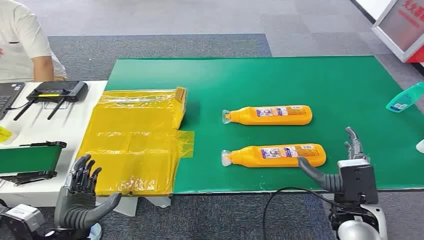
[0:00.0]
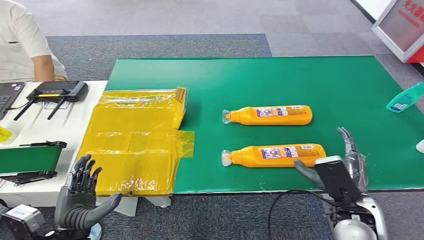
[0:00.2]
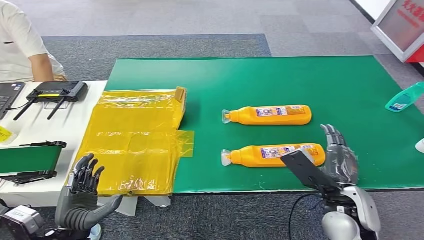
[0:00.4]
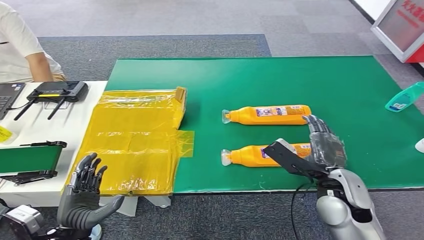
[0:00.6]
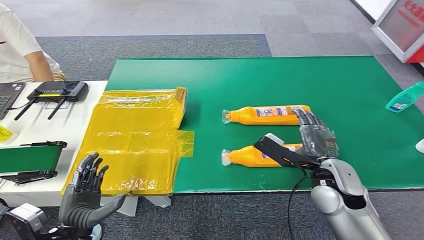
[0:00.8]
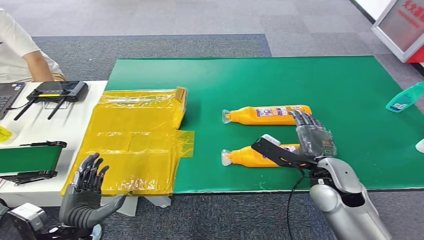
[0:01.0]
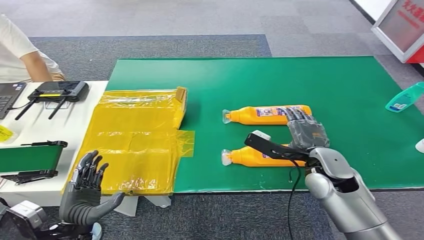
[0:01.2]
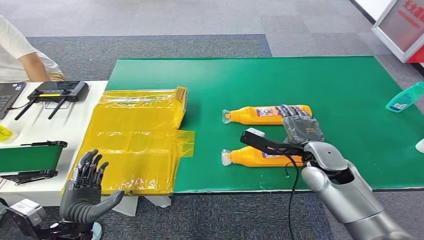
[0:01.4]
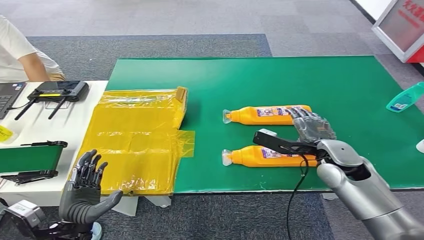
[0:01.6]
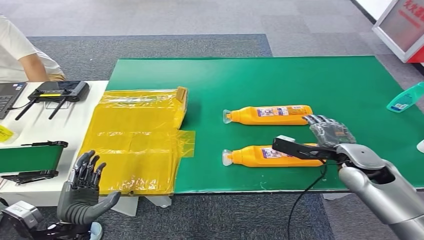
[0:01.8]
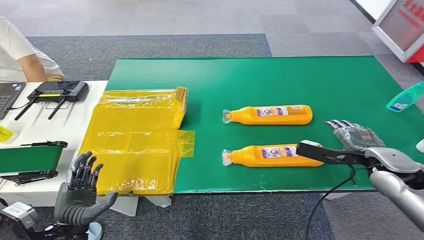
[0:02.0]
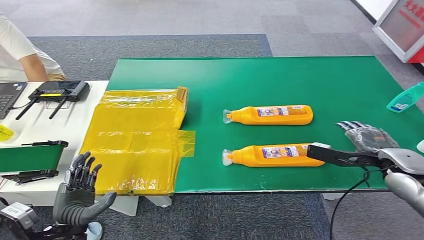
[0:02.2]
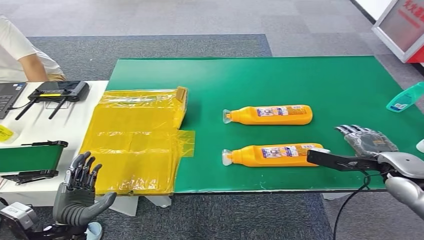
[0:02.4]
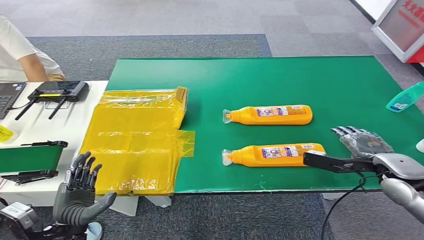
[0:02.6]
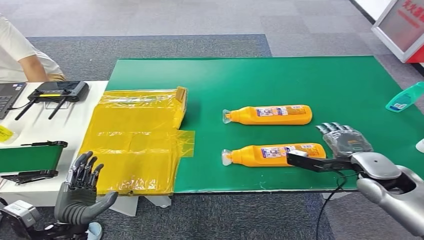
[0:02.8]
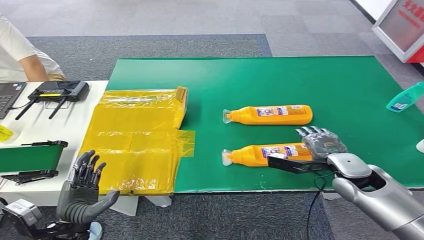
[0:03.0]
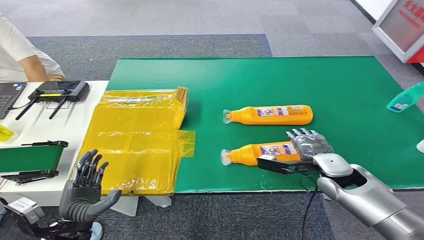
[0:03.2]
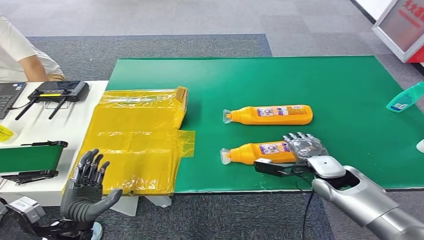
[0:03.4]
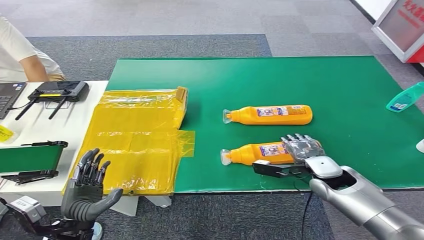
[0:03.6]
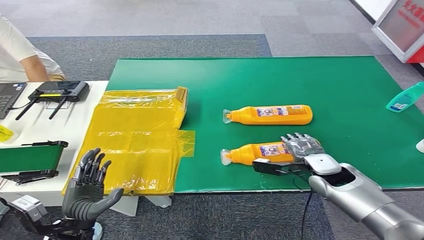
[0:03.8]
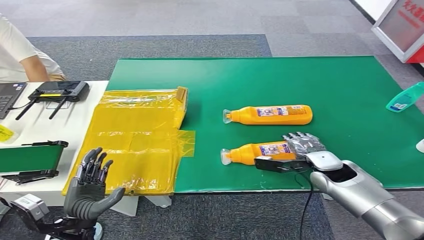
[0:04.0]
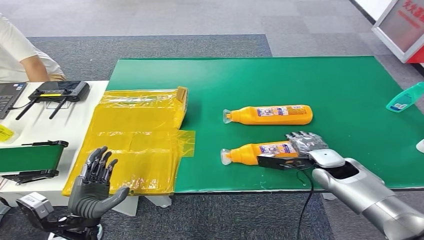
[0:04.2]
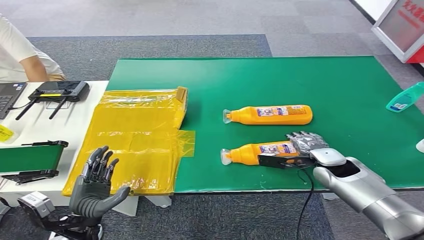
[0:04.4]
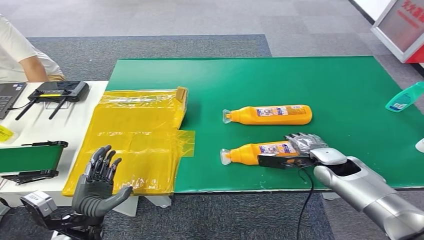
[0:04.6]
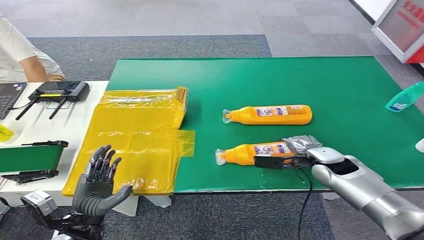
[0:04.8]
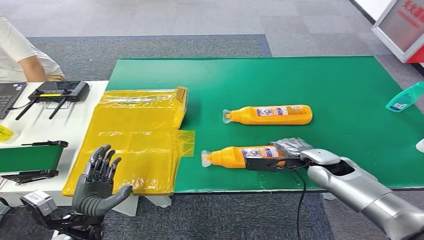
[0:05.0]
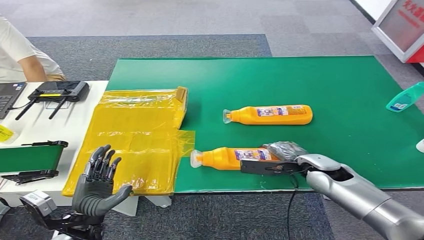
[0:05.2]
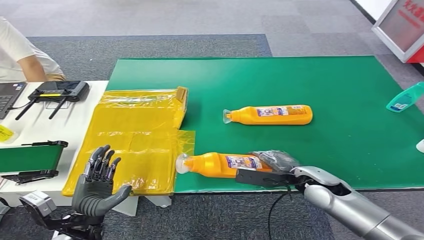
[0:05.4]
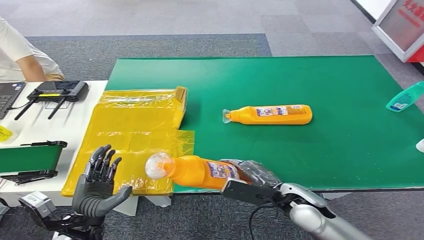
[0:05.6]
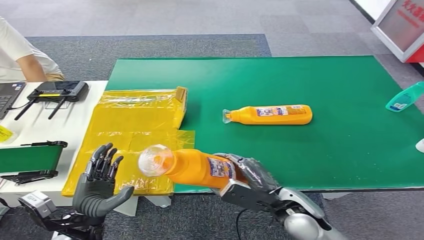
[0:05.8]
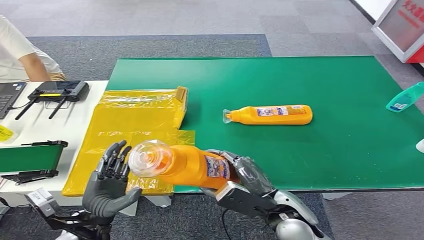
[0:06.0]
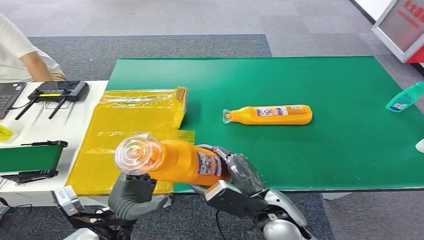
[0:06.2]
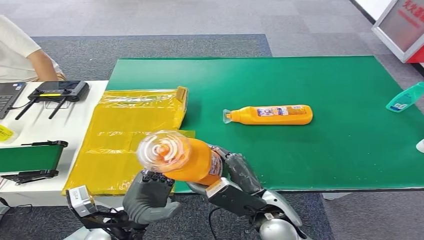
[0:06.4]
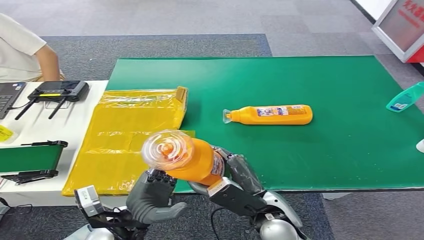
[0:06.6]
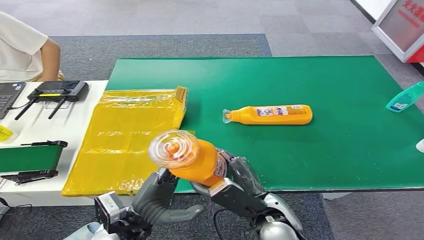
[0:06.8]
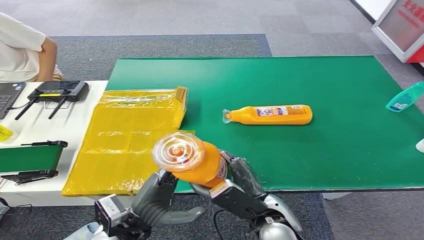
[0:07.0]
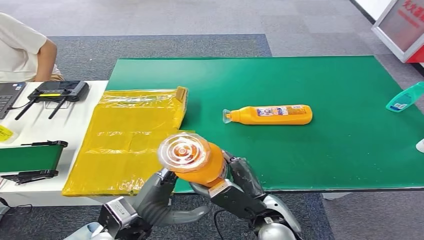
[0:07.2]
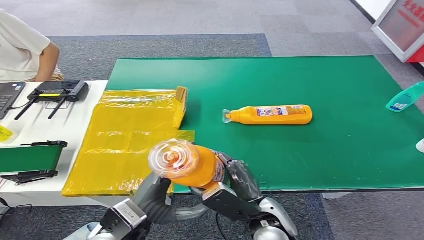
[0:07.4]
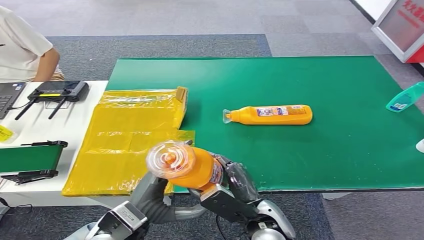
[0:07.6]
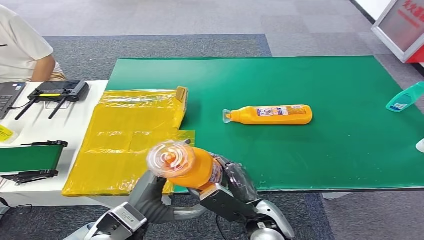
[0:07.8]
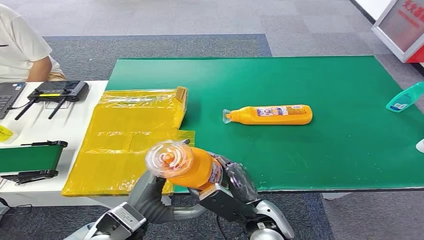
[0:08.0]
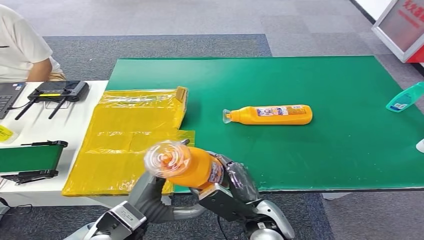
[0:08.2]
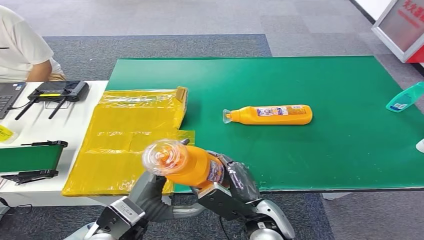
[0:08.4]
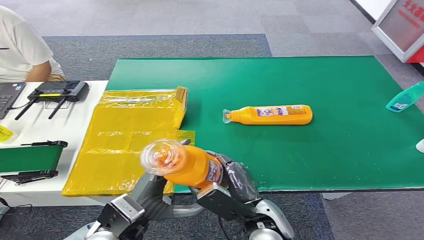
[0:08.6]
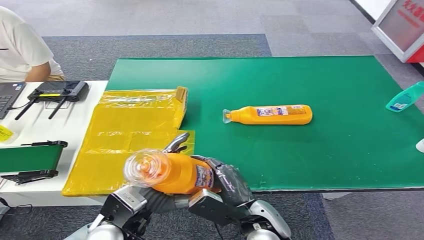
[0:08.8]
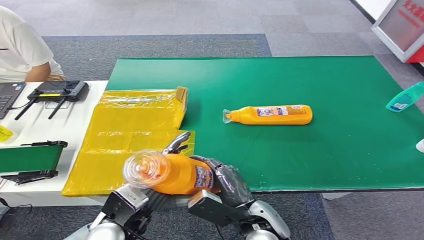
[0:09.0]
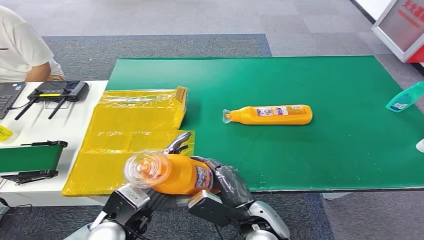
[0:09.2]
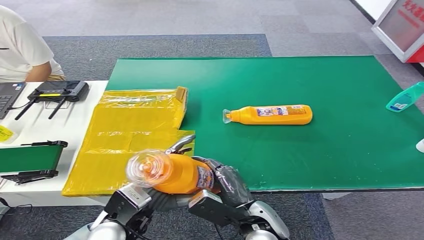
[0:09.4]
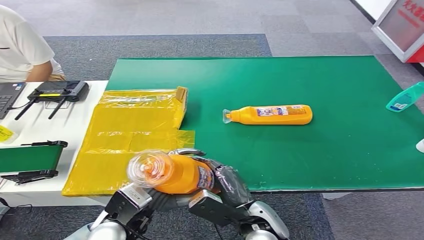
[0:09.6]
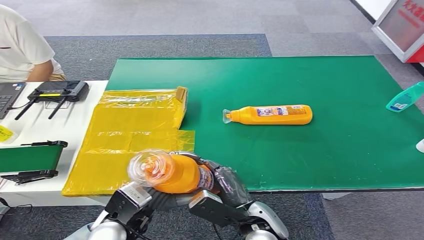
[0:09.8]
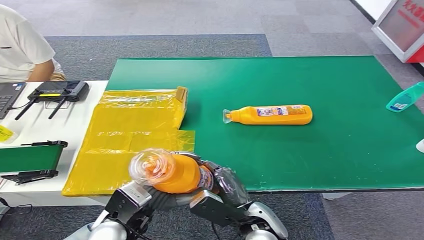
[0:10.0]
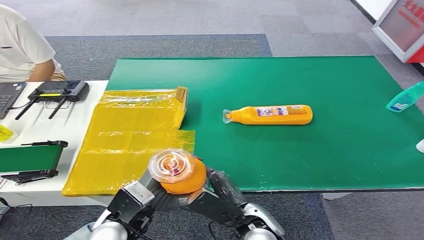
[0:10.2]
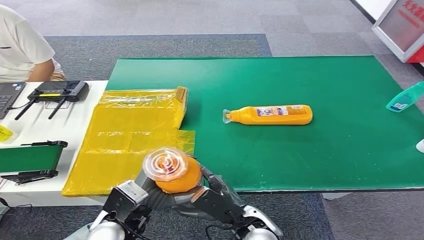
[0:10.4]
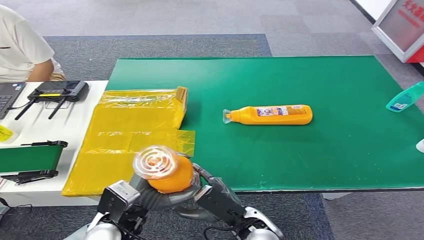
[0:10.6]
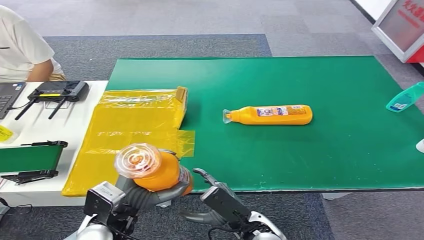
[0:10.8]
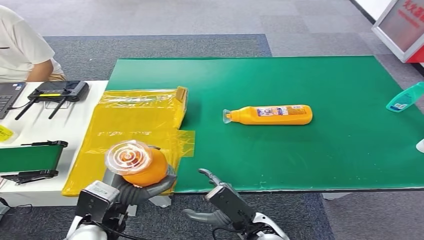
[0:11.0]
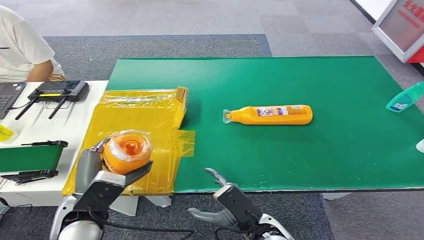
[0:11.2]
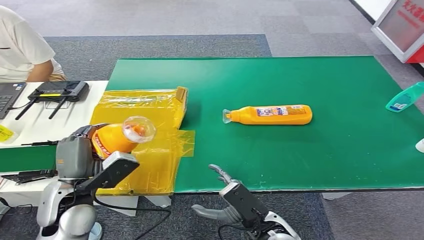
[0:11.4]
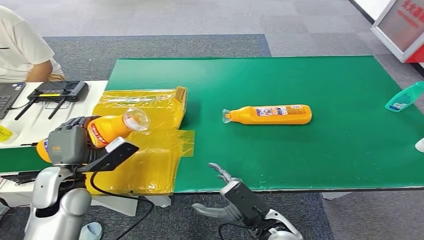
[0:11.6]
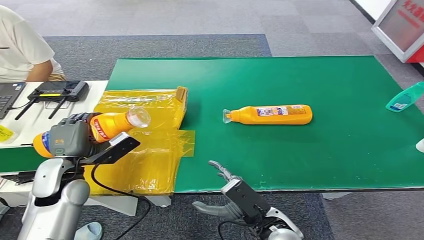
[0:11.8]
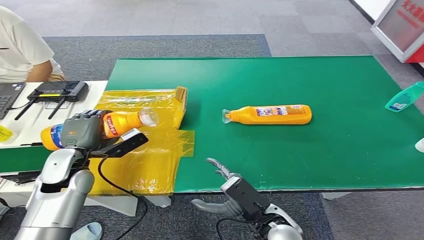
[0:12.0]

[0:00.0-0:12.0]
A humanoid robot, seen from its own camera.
Step, 0:00.0 to 0:06.2: Pick up the bottle from the table.
0:01.6 to 0:03.0: The right hand travels to the right and back again, approximately 10 cm each way.
0:03.0 to 0:04.4: The right hand moves about 5 cm.
0:04.4 to 0:06.0: The right hand is displaced backward and to the left by some 20 cm.
0:06.0 to 0:07.6: The left hand goes about 10 cm to the right and upward; the right hand ends up roughly 5 cm from where it was.
0:07.6 to 0:10.4: The hands move only a little.
0:10.4 to 0:12.0: The left hand heads to the left and forward, covering some 20 cm.

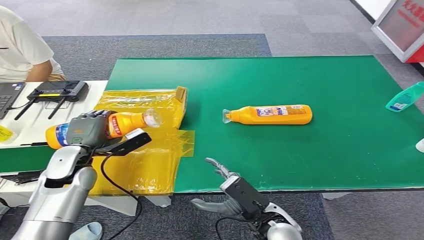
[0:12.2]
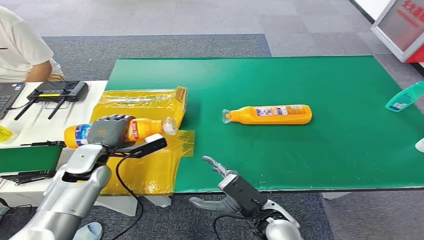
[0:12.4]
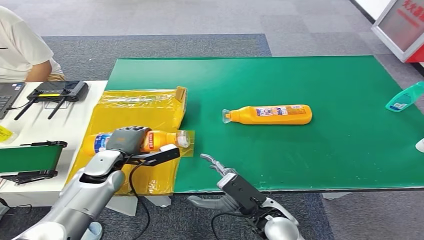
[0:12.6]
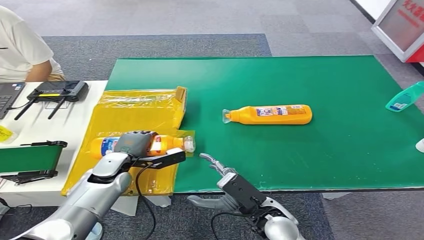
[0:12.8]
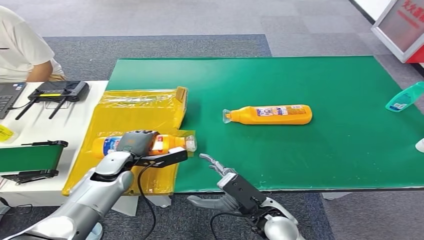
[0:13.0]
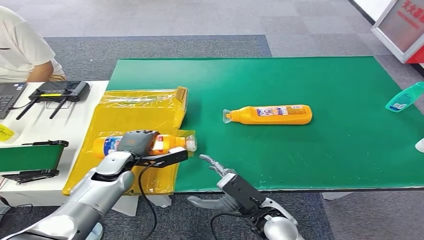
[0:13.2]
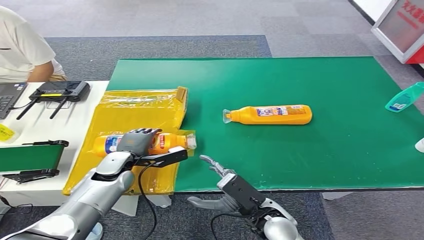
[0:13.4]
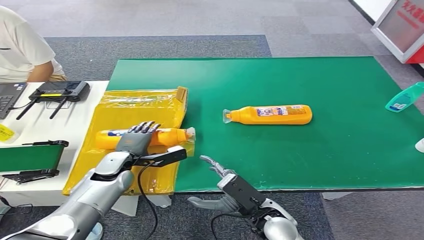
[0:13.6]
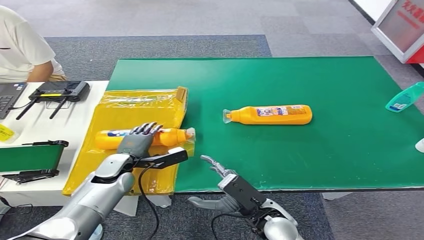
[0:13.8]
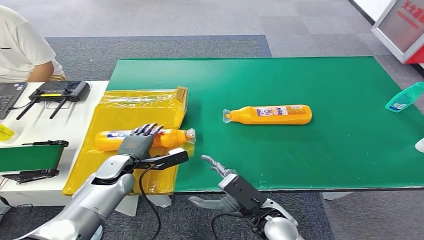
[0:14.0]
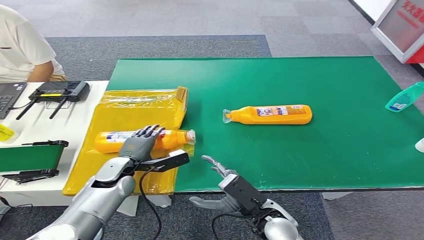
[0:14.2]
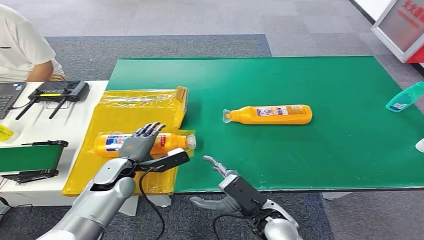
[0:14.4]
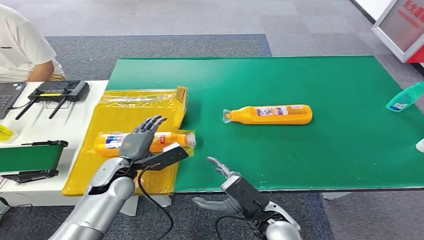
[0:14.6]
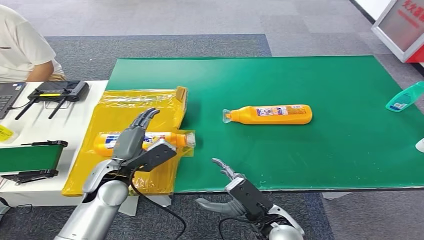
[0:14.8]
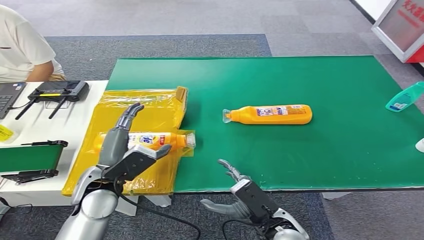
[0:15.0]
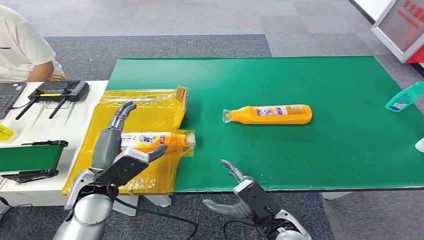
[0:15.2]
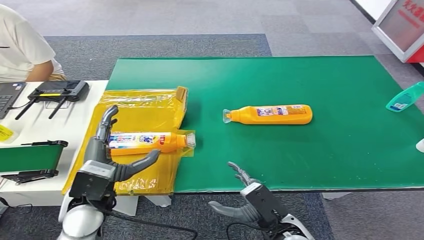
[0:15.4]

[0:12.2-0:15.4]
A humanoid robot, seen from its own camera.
Step, 0:12.2 to 0:15.4: Turn the bottle to the front side.
0:12.2 to 0:13.8: The left hand travels downward and to the right by about 10 cm.
0:13.8 to 0:15.4: The left hand shifts some 15 cm backward and upward.
